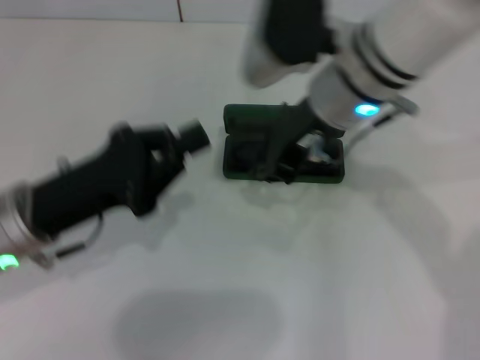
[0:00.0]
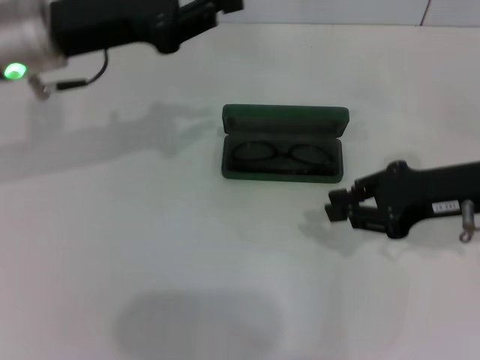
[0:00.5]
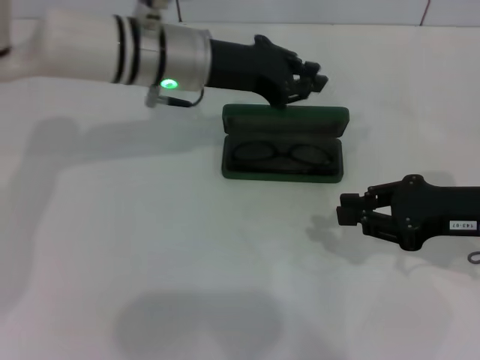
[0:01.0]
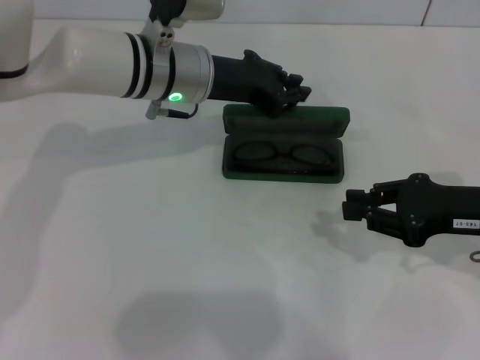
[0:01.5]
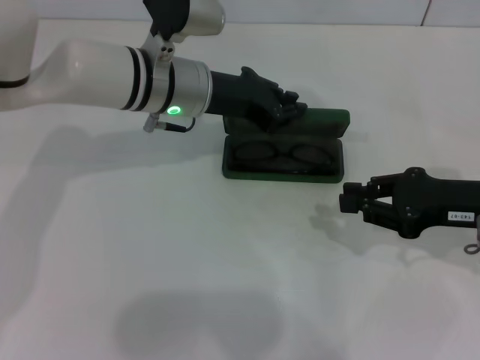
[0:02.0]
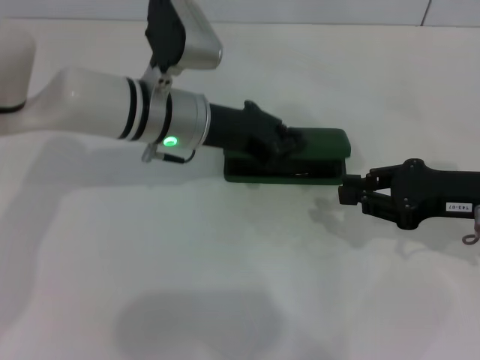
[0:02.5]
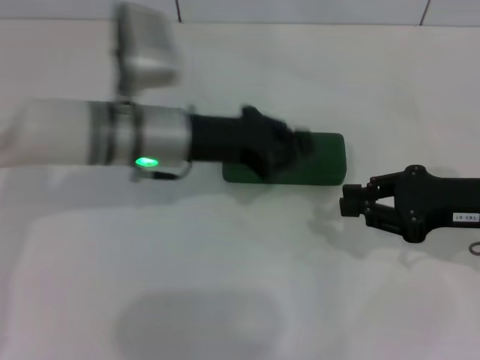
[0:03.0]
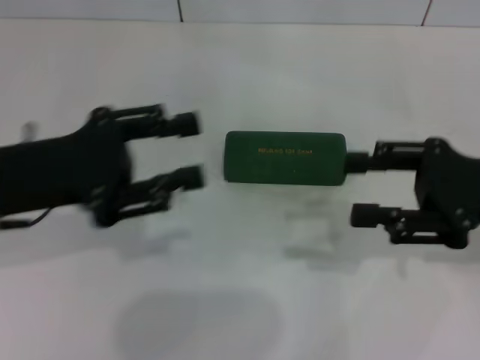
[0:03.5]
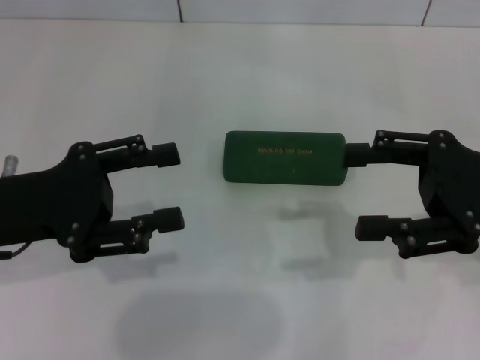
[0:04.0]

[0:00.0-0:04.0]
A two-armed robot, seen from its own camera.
Step, 0:00.0 to 0:02.5: Close the glasses case with your left hand.
0:00.0 to 0:02.0: The right gripper shifts some 20 cm to the right and downward; the left gripper goes about 20 cm forward and to the right.
0:02.0 to 0:04.0: The right gripper shifts some 5 cm upward, and opens, while the left gripper travels backward and to the left by about 25 cm, and opens.

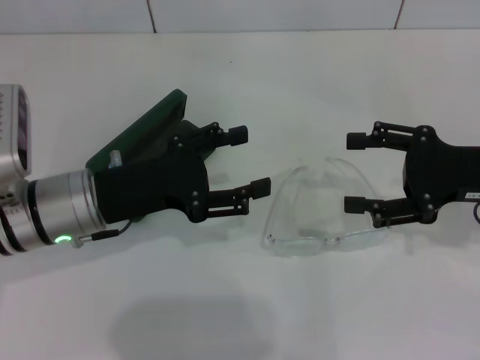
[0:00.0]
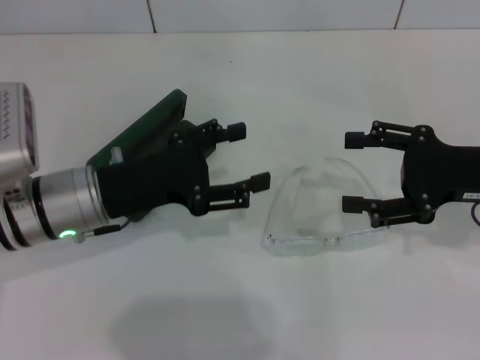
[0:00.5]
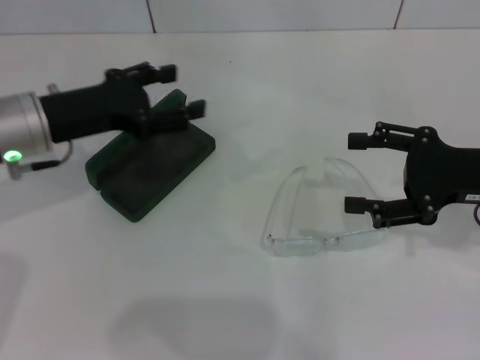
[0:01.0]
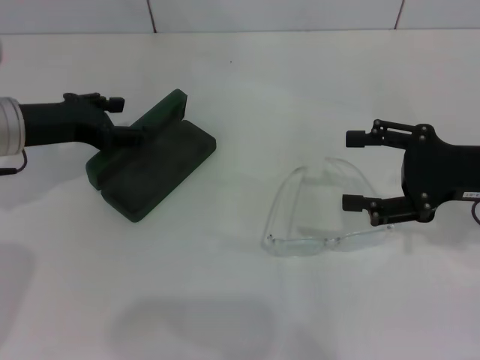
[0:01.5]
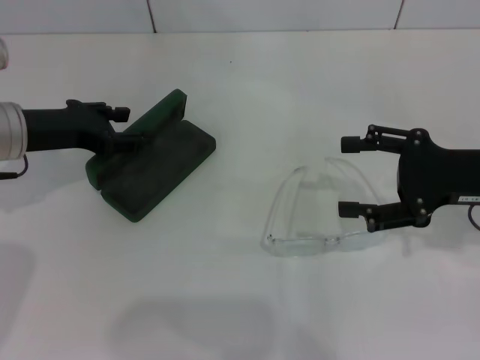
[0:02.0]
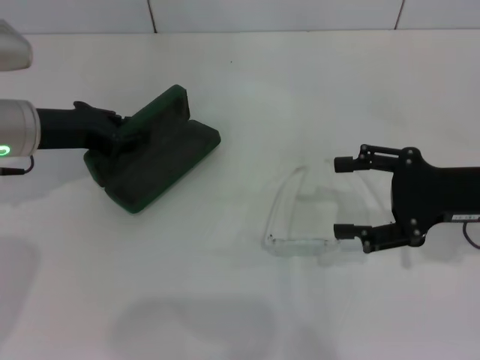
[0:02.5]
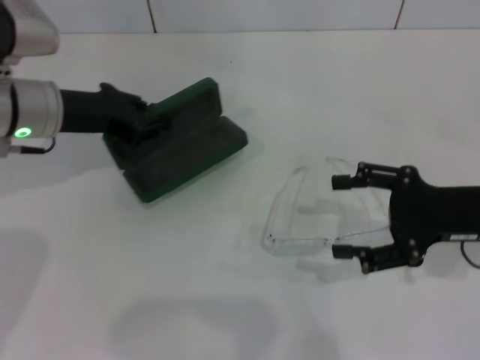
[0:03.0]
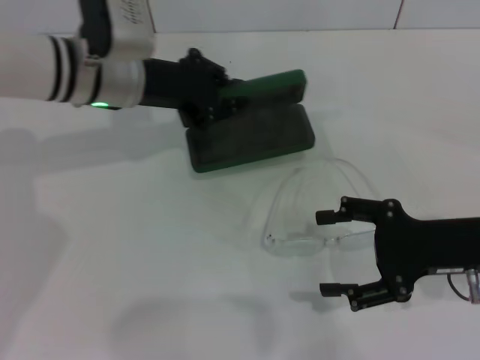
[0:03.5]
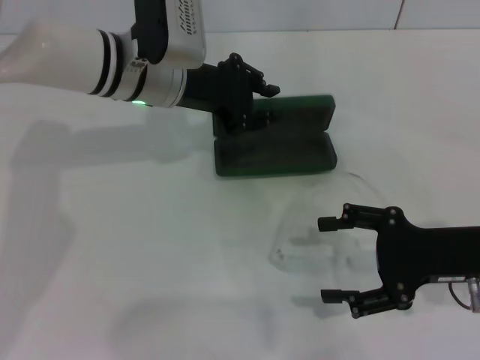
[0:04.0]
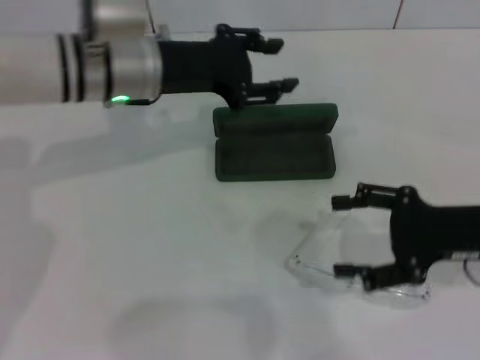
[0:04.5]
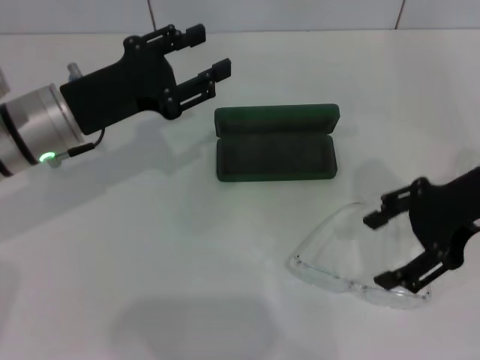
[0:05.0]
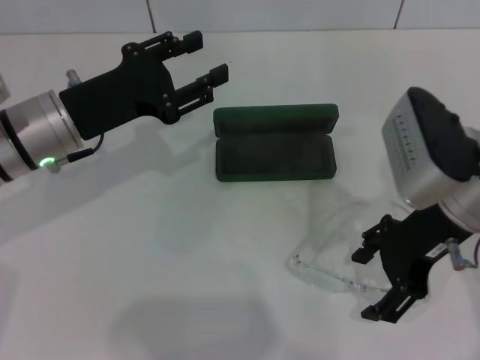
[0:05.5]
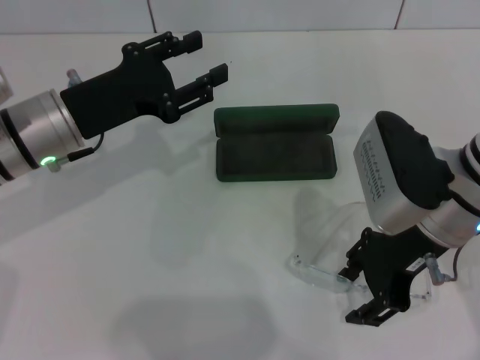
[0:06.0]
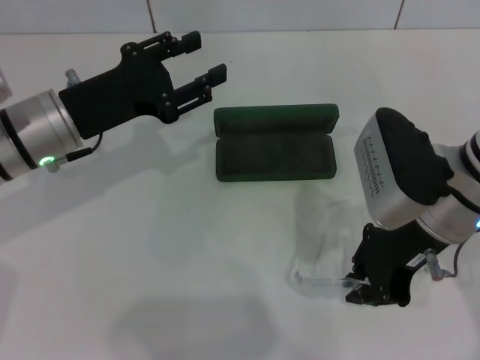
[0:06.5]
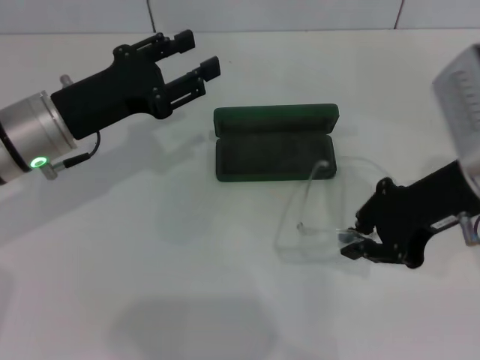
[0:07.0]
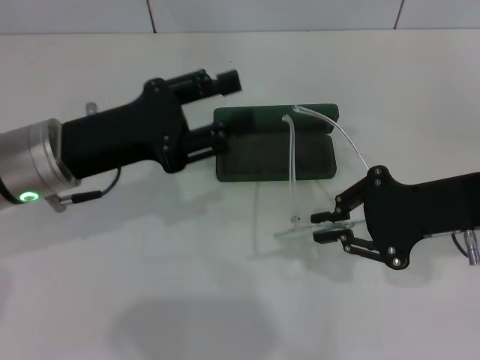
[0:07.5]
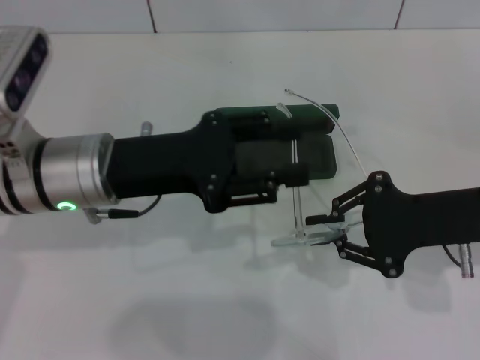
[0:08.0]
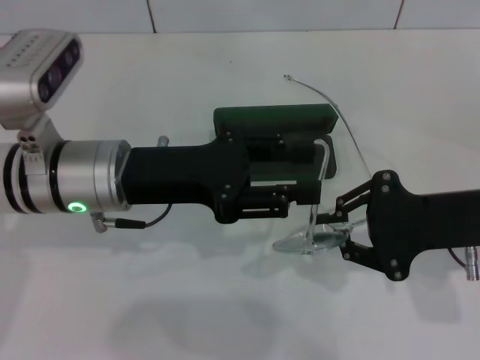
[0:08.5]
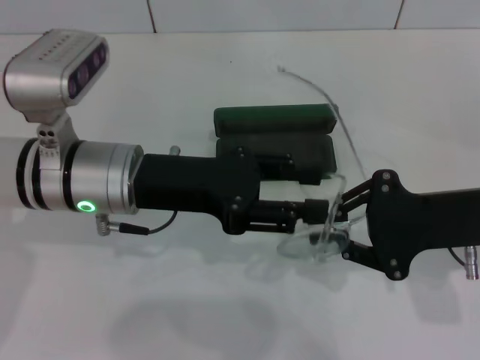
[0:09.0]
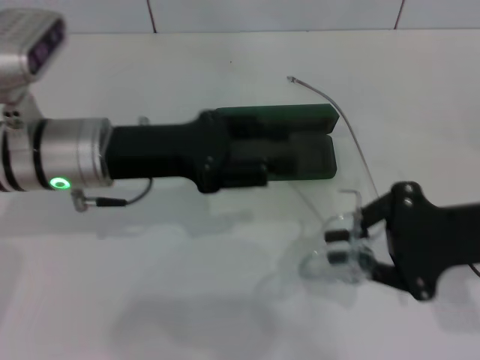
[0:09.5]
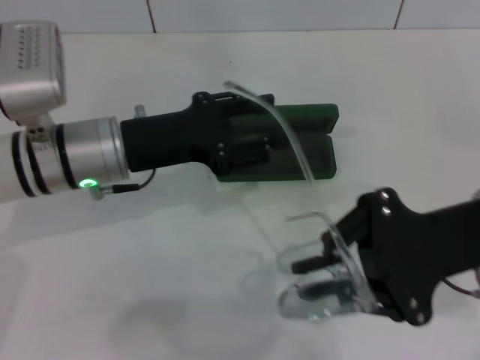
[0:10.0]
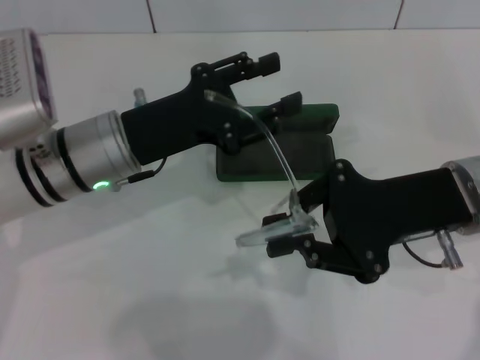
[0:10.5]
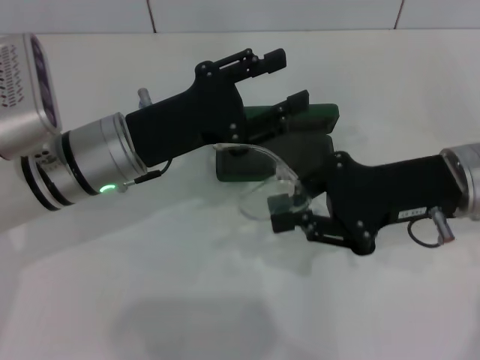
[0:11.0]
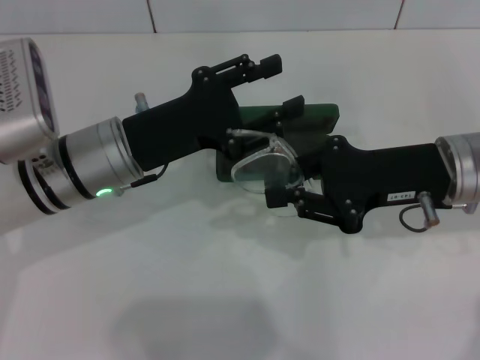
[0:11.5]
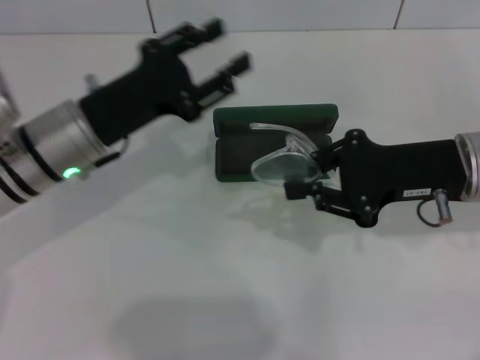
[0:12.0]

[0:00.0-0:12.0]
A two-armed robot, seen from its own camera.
Step, 0:00.0 to 0:02.0: Grab the glasses case with your left hand.
Step, 0:02.5 to 0:04.0: Place the glasses case in the center of the table with your left hand.
Step, 0:04.5 to 0:06.5: Grab the eyeglass frame with your right hand.
Step, 0:07.0 to 0:11.5: Fold the frame with your left hand.
0:00.0 to 0:02.0: The left gripper goes some 10 cm to the left and forward.
0:02.0 to 0:04.0: The right gripper ends up approximately 5 cm from where it was. The left gripper goes approximately 15 cm to the right, and closes up.
0:04.0 to 0:06.0: The left gripper moves to the left and backward, about 10 cm, and opens up; the right gripper is displaced to the left and upward by roughly 10 cm.
0:06.0 to 0:08.0: The right gripper travels to the right by some 5 cm, and closes up. Meanwhile the left gripper changes place by about 5 cm.
0:10.0 to 0:12.0: The right gripper is displaced forward by about 5 cm.

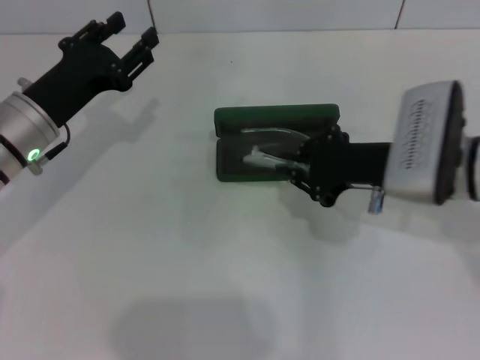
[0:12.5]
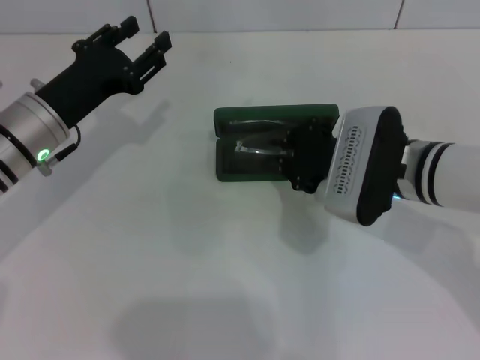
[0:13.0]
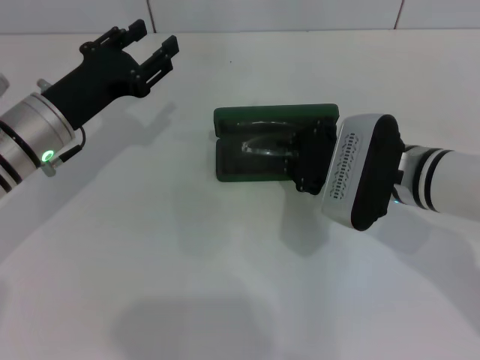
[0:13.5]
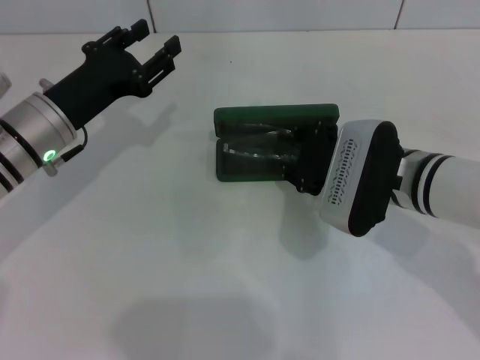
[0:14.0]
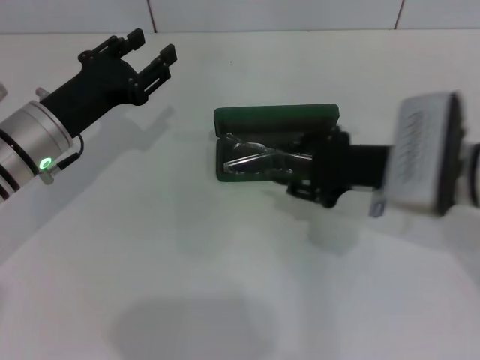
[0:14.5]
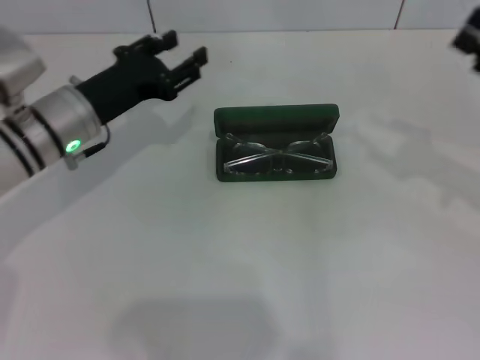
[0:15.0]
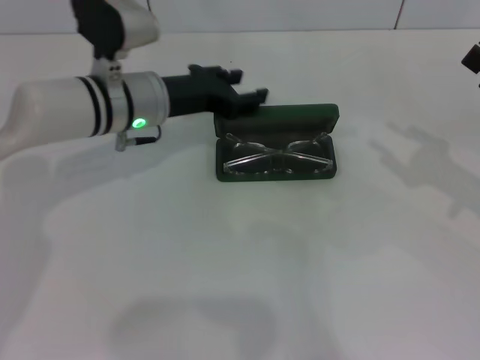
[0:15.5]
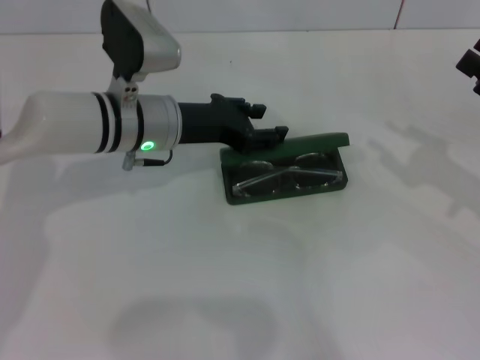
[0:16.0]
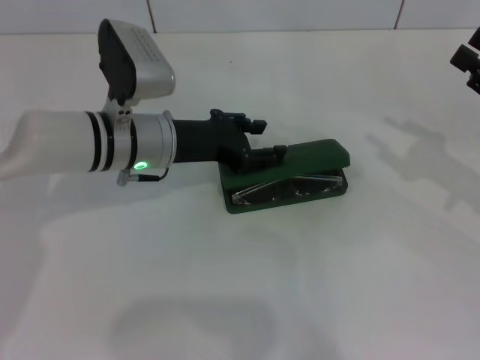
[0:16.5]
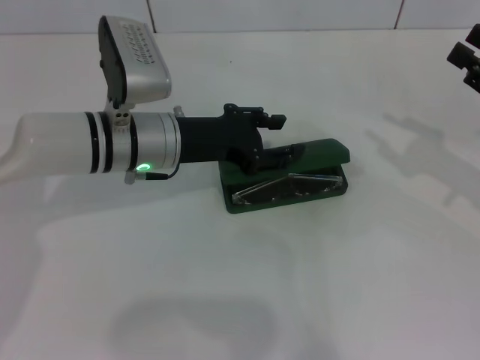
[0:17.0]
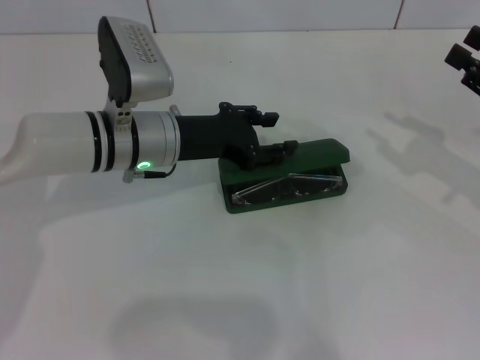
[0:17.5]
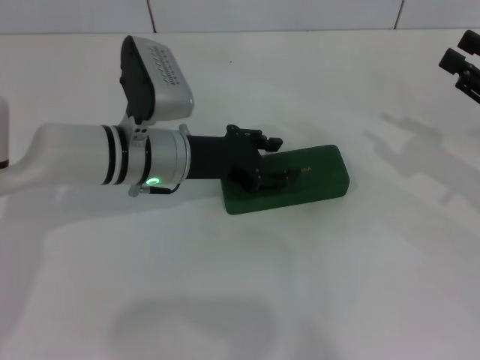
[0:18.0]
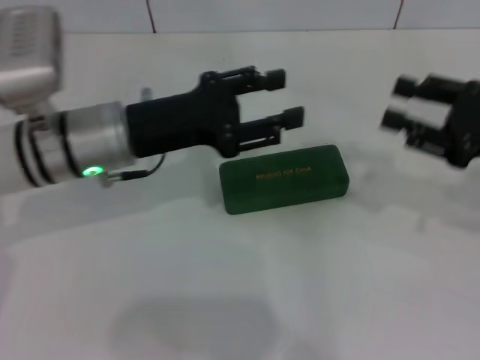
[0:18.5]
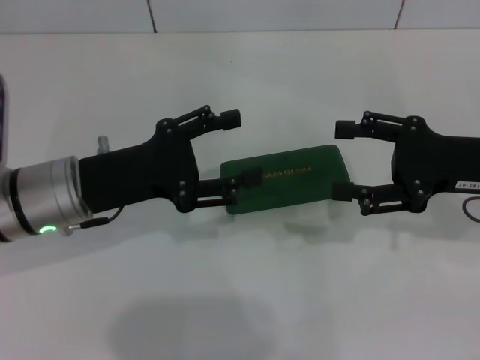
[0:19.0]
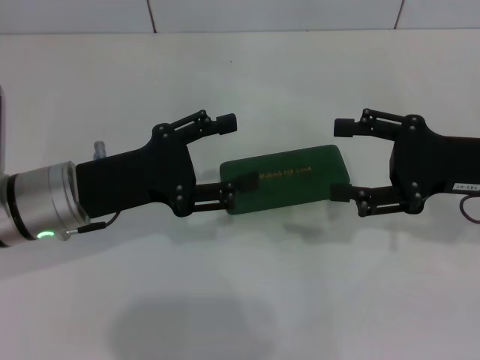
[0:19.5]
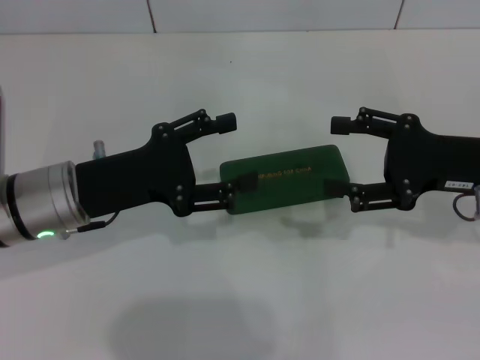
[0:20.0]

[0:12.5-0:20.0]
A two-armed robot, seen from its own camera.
Step, 0:12.5 to 0:14.5: Put the glasses into the case with your right hand.
Step, 0:15.0 to 0:17.5: Close the glasses case with your left hand.
0:12.5 to 0:14.5: The right gripper opens up.
0:14.5 to 0:16.5: The left gripper heads to the right, covering about 10 cm. The right gripper is displaced to the right by approximately 15 cm.
0:16.5 to 0:18.0: The grippers stay close to where they were, moving slightly.
0:18.0 to 0:20.0: The right gripper is displaced to the left by roughly 10 cm, and opens up. The left gripper heads to the left and backward, covering about 10 cm, and opens up.
